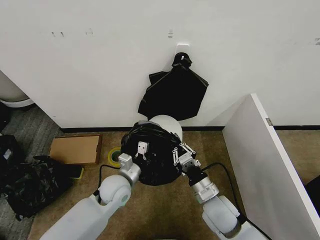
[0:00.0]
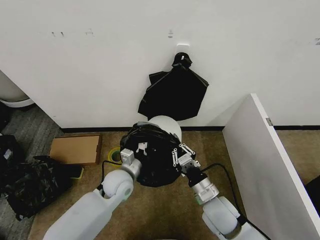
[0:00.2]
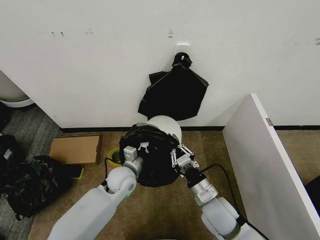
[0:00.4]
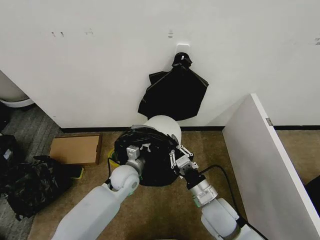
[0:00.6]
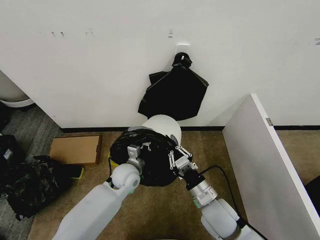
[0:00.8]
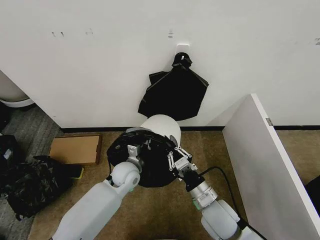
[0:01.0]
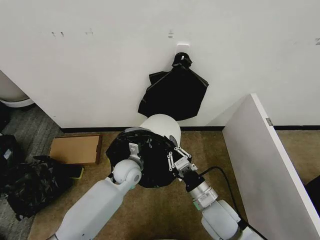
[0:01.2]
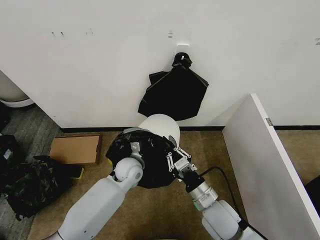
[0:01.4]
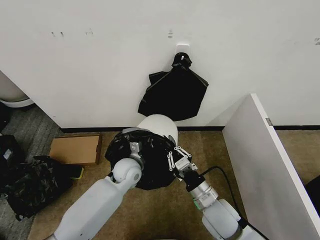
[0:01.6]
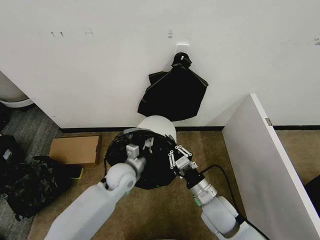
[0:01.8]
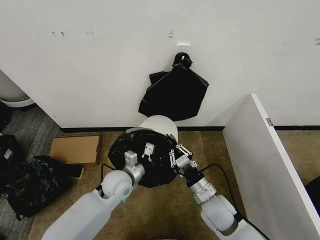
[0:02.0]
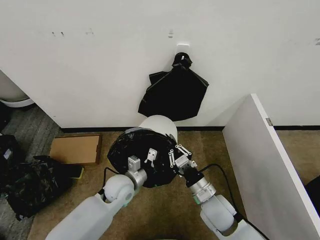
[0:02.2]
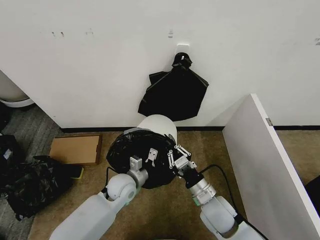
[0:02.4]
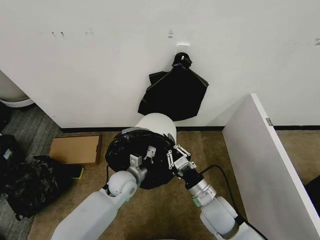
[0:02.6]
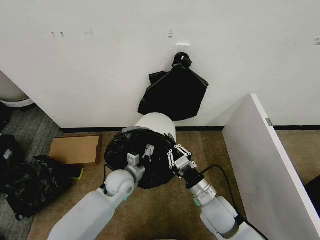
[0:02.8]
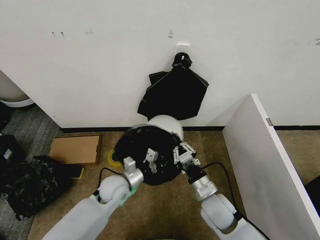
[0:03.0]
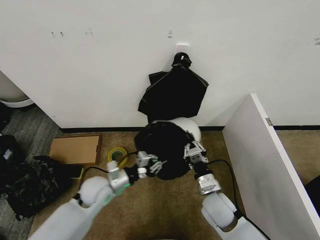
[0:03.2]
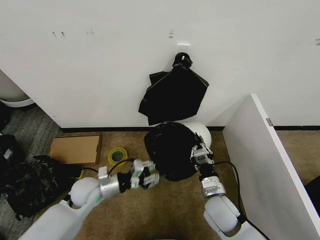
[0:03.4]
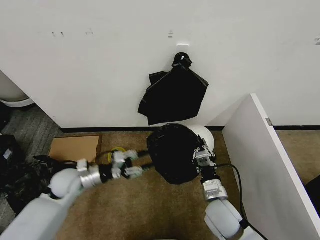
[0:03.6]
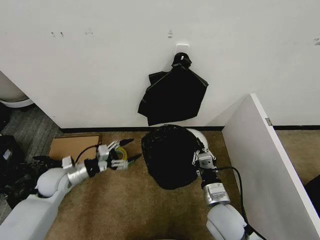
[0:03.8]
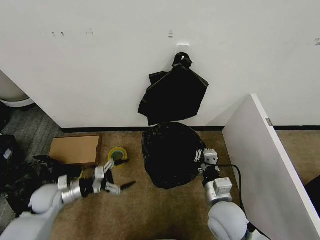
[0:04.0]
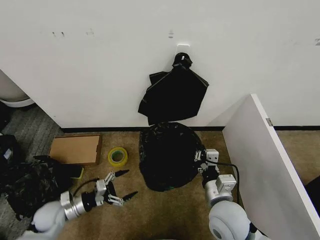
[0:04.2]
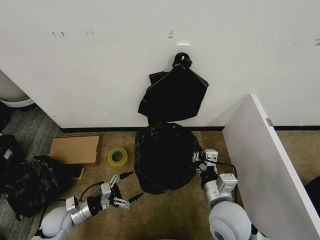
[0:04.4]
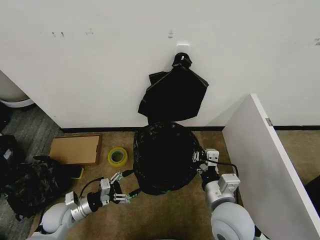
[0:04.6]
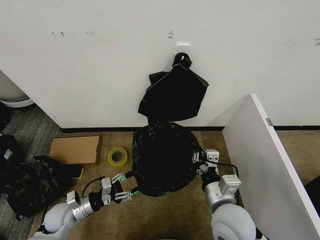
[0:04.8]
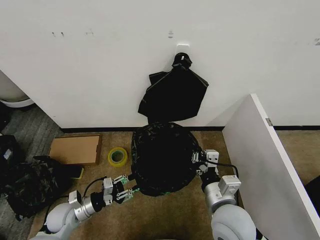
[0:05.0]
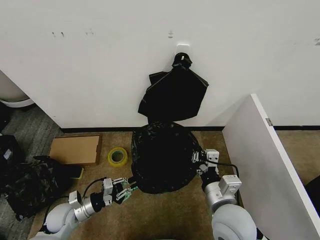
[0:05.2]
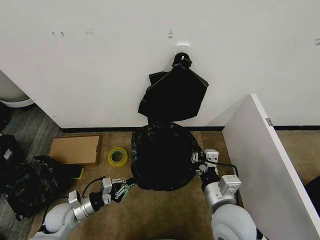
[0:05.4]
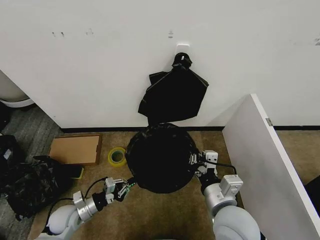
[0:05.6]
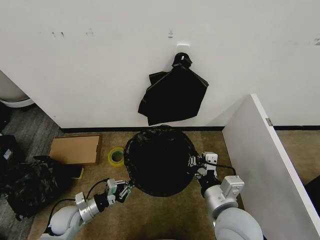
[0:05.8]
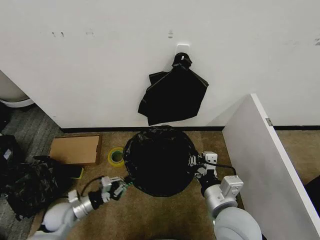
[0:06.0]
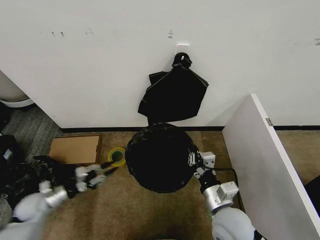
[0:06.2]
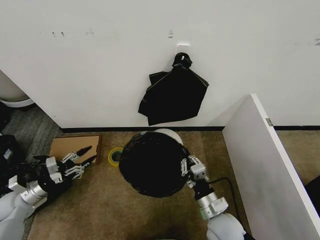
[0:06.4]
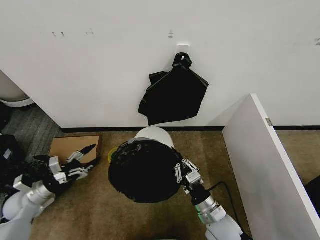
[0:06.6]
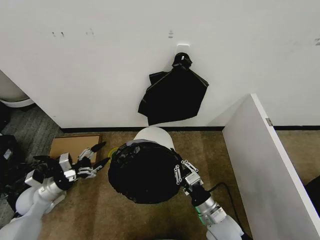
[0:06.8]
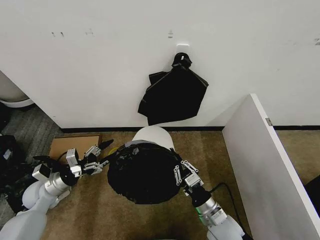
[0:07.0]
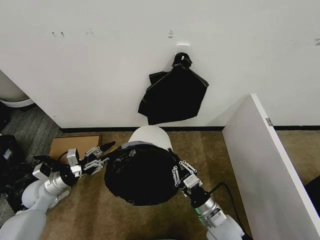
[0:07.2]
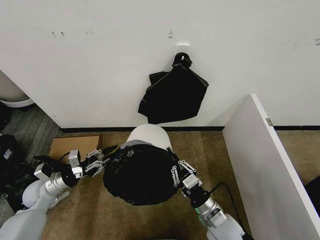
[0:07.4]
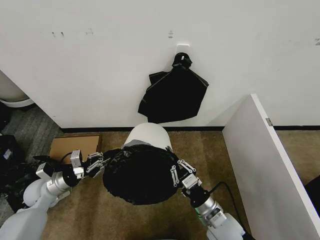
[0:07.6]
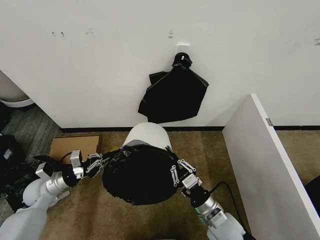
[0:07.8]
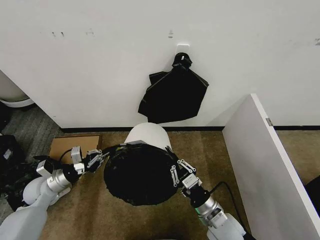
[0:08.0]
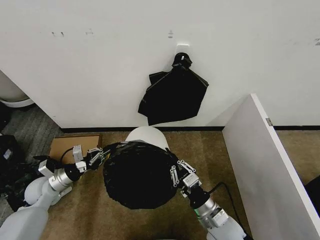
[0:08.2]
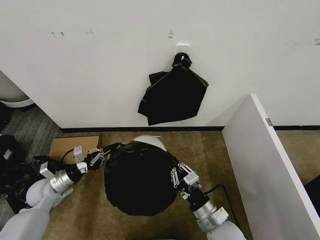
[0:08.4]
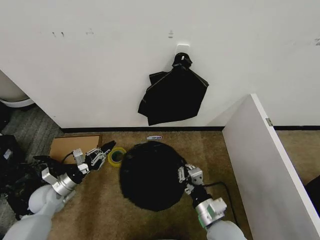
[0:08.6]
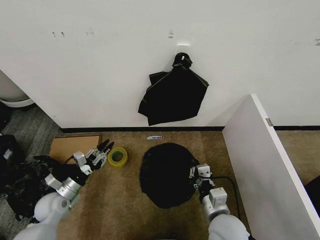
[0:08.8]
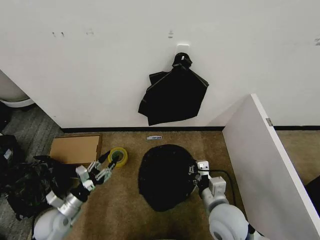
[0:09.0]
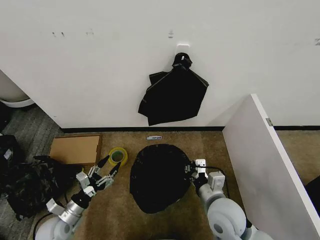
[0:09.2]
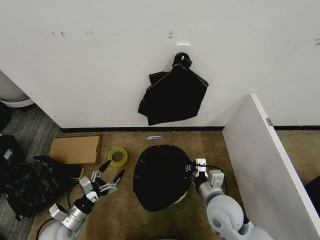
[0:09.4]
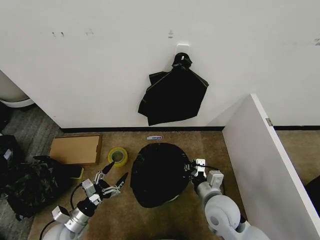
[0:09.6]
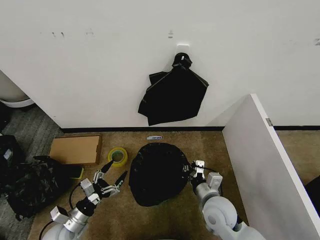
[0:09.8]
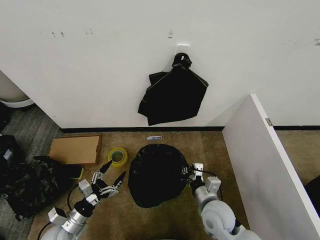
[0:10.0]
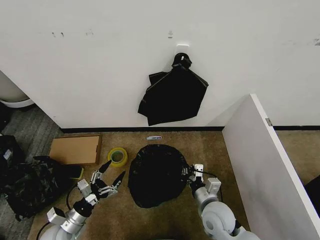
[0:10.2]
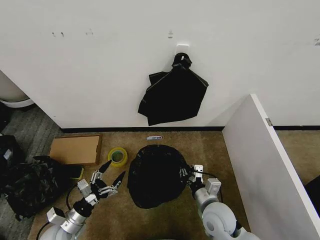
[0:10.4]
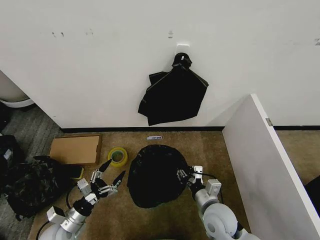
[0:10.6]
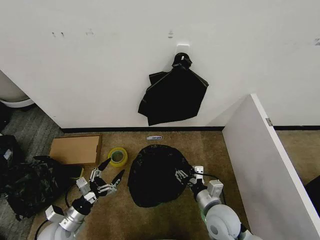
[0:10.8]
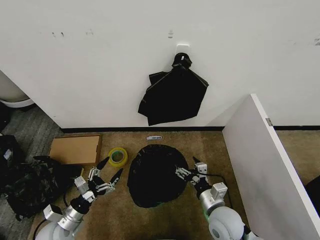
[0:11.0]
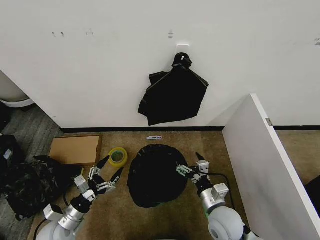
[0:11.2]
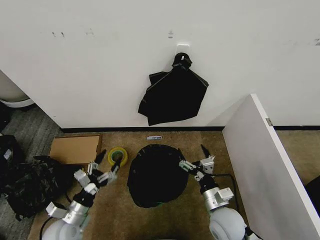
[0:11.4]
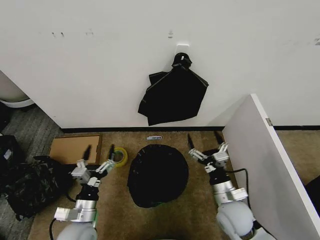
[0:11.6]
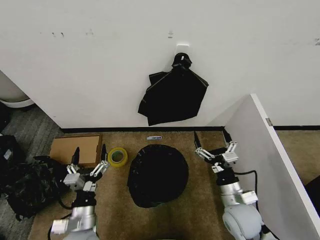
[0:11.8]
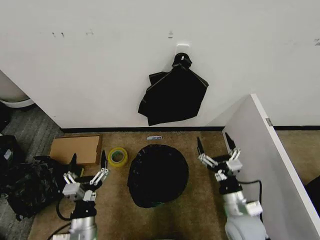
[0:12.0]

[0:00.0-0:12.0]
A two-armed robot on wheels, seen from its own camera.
Task of the whole recording: Place the garbage bag over the trash bin.
0:00.0 to 0:01.6: The left gripper shifts some 5 cm forward.
0:01.6 to 0:03.0: The left gripper moves backward, approximately 5 cm.
0:03.0 to 0:04.4: The left gripper heads to the left and downward, covering some 20 cm, and opens up, while the right gripper heads upward and backward, covering approximately 10 cm.
0:04.4 to 0:06.0: The left gripper closes.
0:06.0 to 0:07.6: The left gripper is displaced upward and to the left by some 10 cm, and opens and closes again. The right gripper shifts approximately 10 cm downward.
0:07.6 to 0:09.0: The left gripper heads backward, downward and to the right, covering roughly 10 cm, and opens up. Meanwhile the right gripper goes about 5 cm upward.
0:09.0 to 0:10.4: The left gripper changes place by about 5 cm, and opens; the right gripper travels downward by some 5 cm.
0:10.4 to 0:12.0: The left gripper shifts approximately 15 cm to the right, upward and backward. Meanwhile the right gripper moves to the right, approximately 5 cm, and opens its fingers.

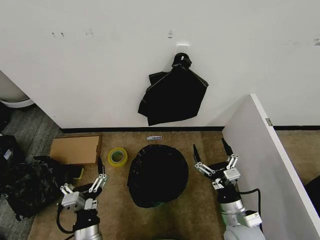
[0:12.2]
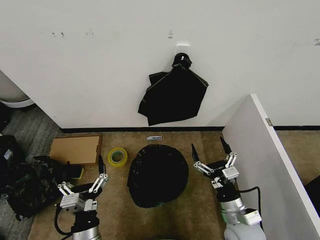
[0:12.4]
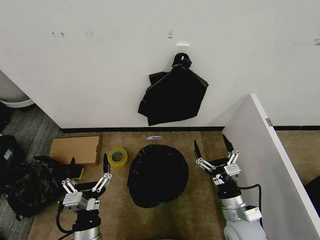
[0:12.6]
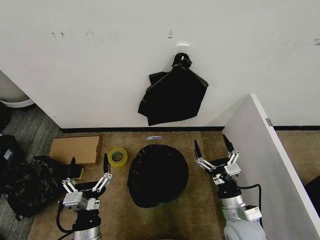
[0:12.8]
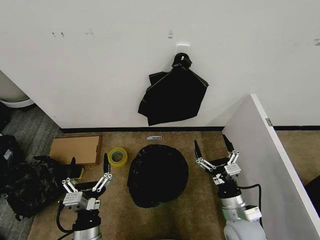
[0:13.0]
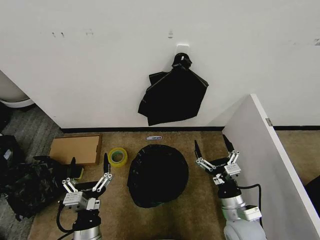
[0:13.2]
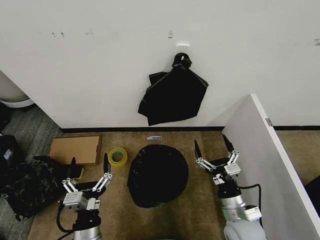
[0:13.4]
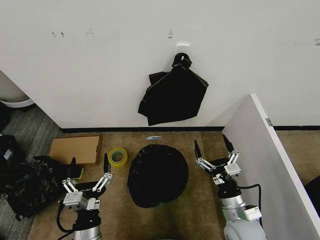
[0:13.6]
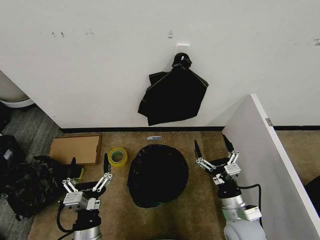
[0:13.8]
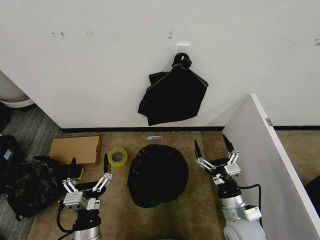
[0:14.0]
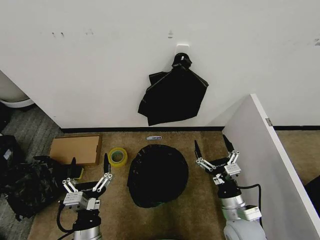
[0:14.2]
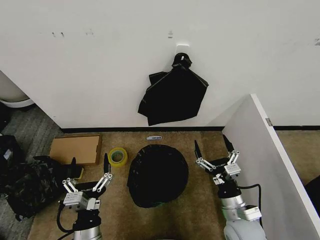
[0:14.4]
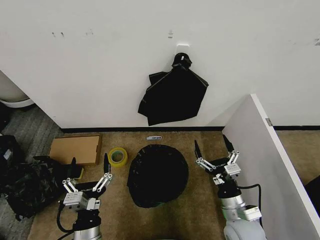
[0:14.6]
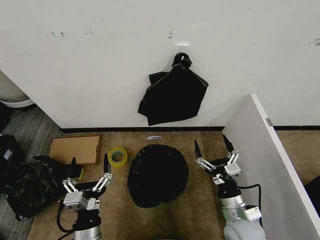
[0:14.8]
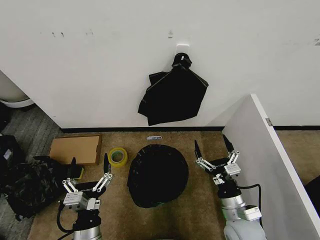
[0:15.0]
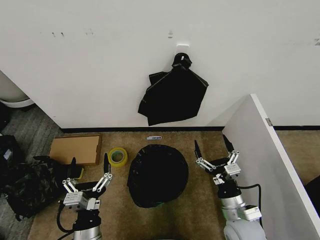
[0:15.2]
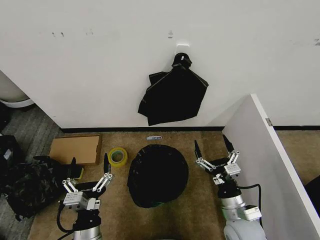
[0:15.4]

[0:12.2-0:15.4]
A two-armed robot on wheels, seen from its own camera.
Task of the whole recording: Place the garbage bag over the trash bin.
0:12.2 to 0:13.8: The grippers make only small movements.
0:13.8 to 0:15.4: The two grippers keep their place.

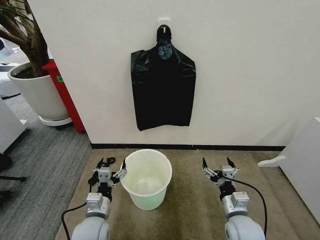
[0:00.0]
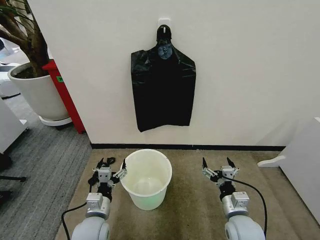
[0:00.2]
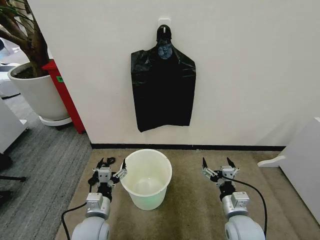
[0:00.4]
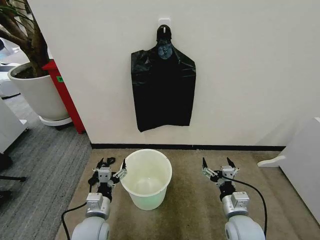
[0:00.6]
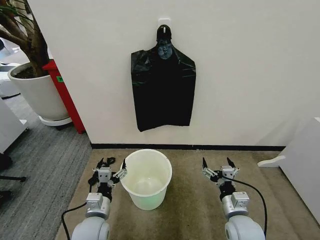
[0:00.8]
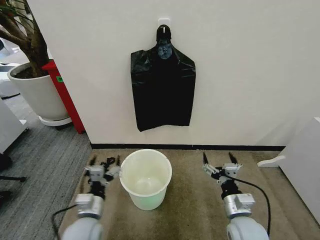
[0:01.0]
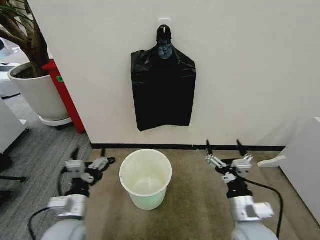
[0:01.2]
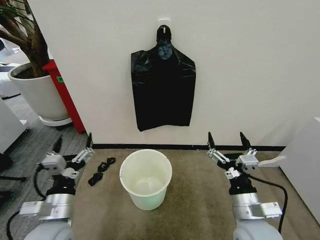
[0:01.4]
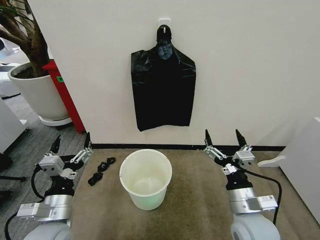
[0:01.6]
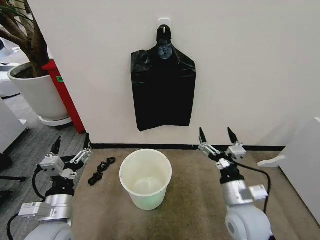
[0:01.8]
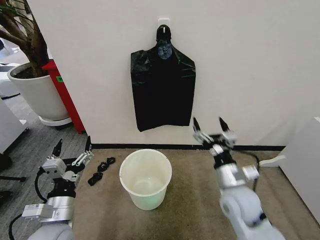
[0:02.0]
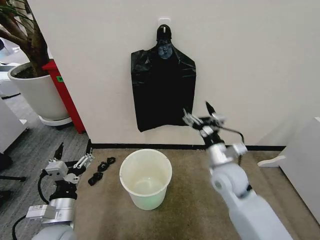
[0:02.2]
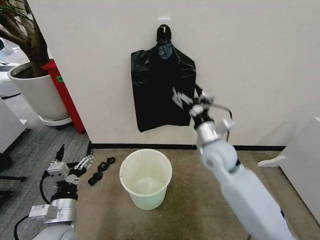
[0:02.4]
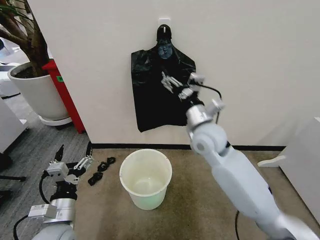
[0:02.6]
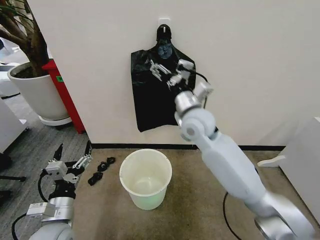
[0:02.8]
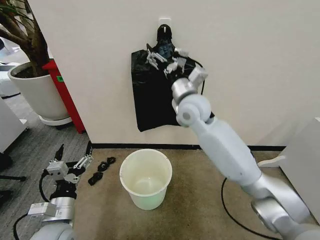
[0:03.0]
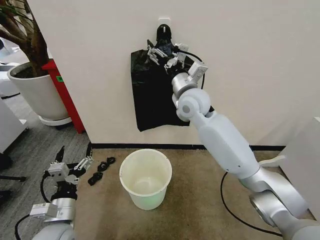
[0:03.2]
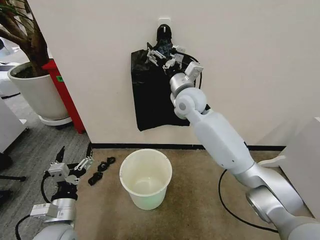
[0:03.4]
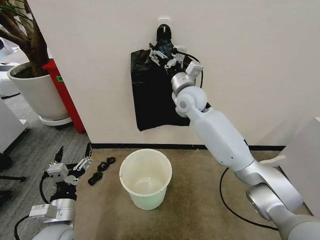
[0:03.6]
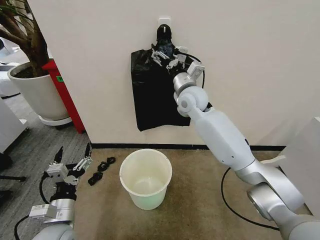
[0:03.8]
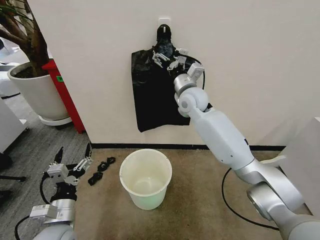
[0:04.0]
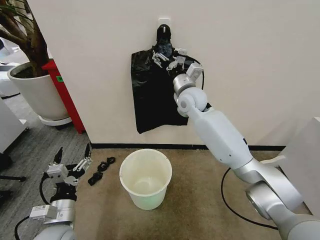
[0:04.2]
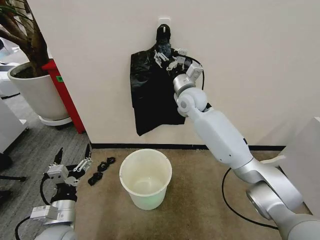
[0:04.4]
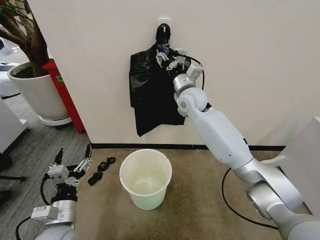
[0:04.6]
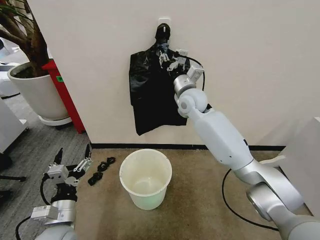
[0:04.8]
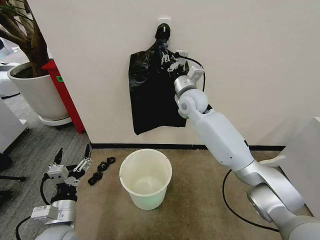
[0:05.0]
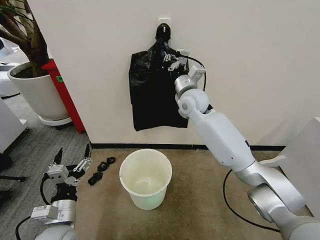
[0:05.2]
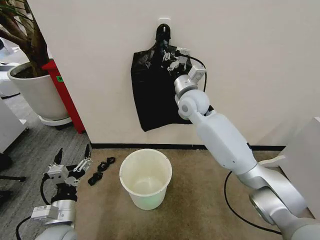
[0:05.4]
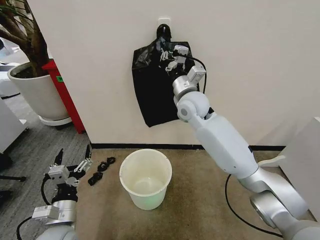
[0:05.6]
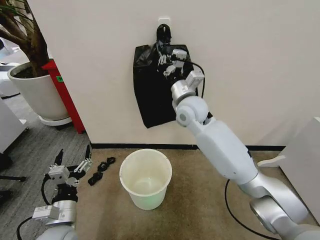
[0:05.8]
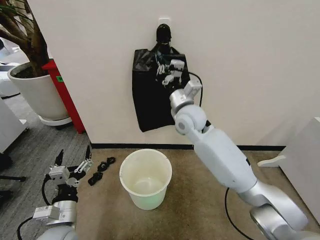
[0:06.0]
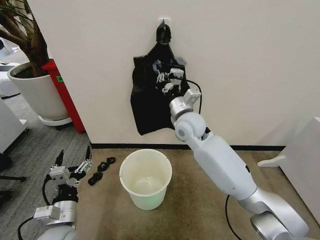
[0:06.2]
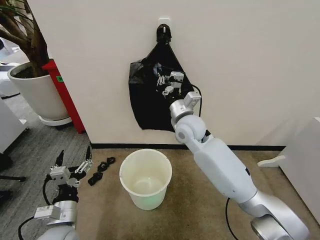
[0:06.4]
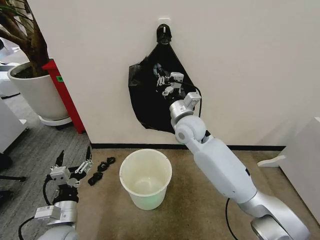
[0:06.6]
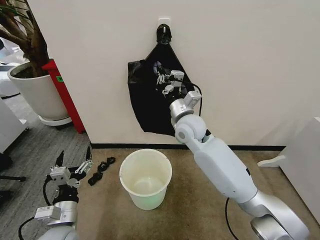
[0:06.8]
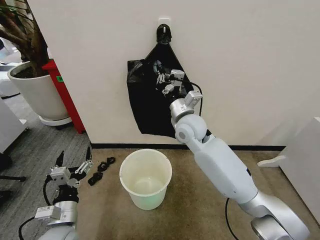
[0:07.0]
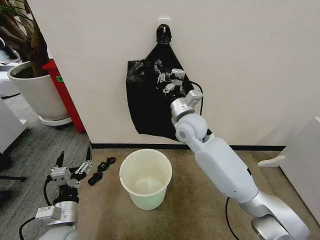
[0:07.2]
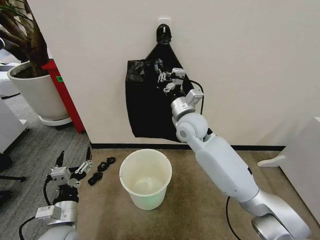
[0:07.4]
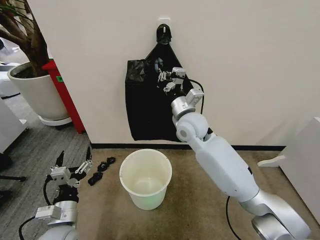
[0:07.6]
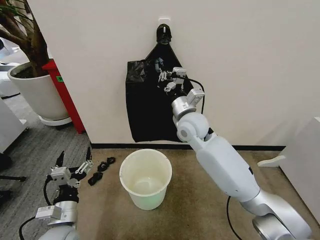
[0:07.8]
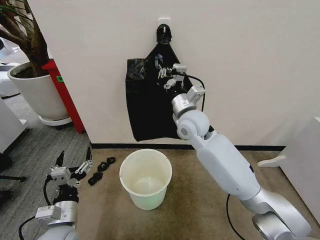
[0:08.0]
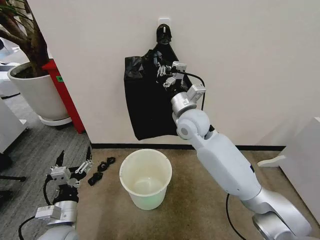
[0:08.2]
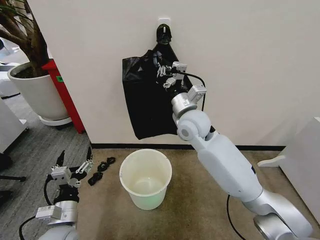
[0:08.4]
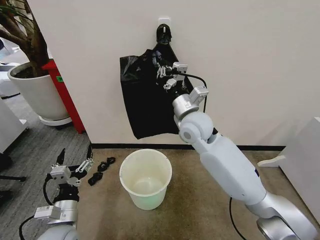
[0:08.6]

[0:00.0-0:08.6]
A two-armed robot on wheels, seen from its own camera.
Task of the whole recording: Place the garbage bag over the trash bin.
0:01.4 to 0:02.8: The right gripper heads forward, upward and to the left, covering some 30 cm.
0:02.8 to 0:04.4: The right gripper heads forward, covering approximately 10 cm.
0:04.4 to 0:05.8: The right gripper shifts approximately 5 cm backward, and closes its fingers.
0:05.8 to 0:07.2: The right gripper moves roughly 5 cm.
0:07.2 to 0:08.6: The grippers make only small movements.
